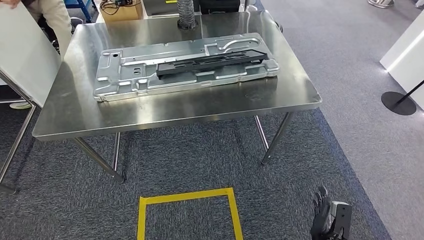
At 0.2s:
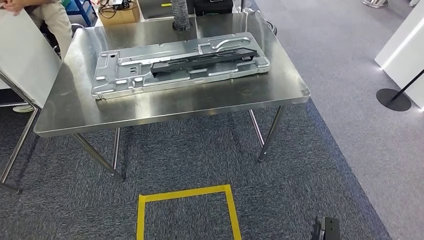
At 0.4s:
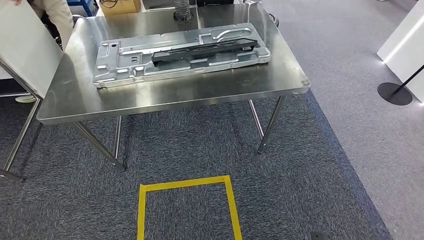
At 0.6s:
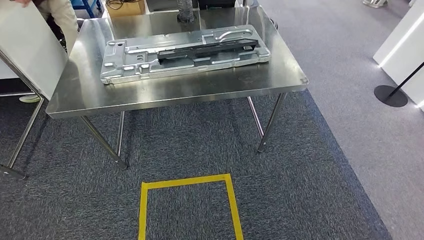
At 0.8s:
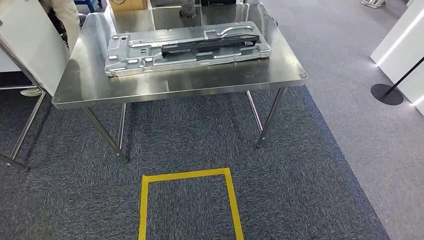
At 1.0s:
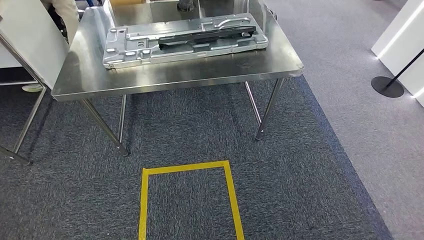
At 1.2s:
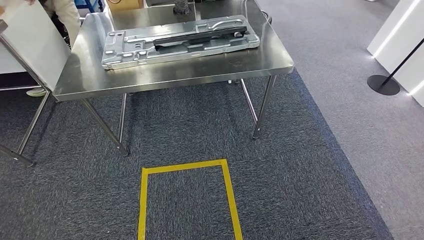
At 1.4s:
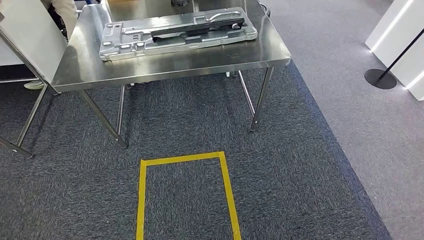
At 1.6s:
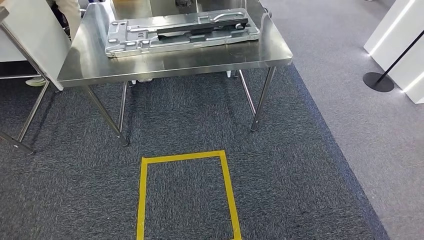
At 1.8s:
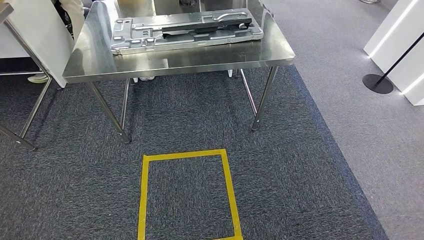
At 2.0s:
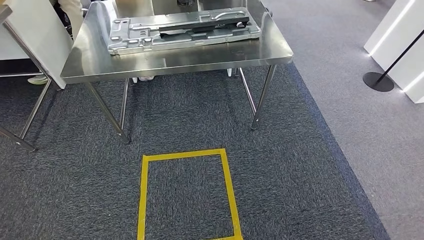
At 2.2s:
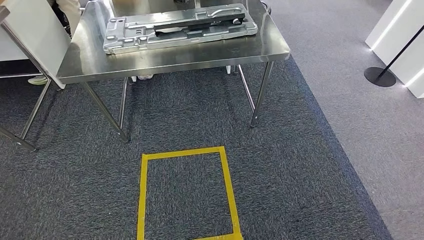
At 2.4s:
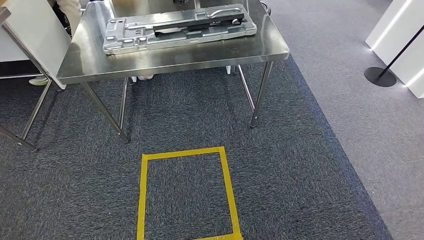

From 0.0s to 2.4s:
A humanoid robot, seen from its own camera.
Step, from 0.0s to 2.4s: Return to the initial position at the workbench.
